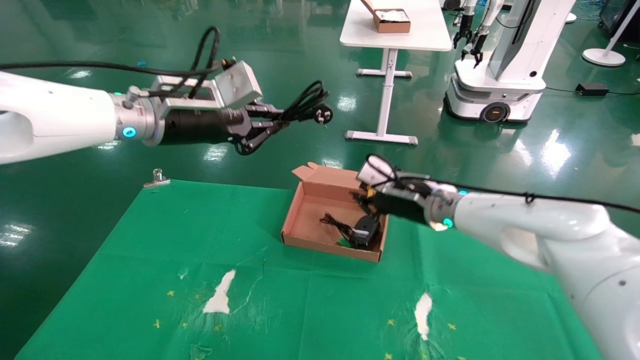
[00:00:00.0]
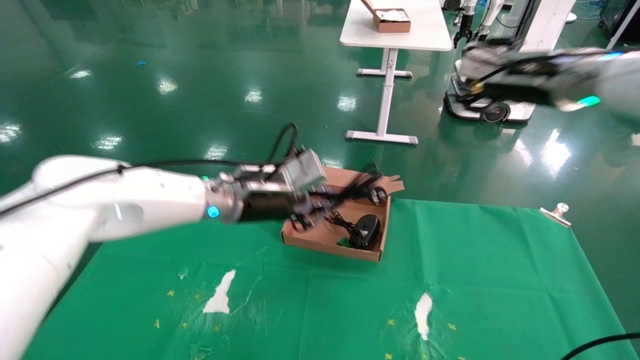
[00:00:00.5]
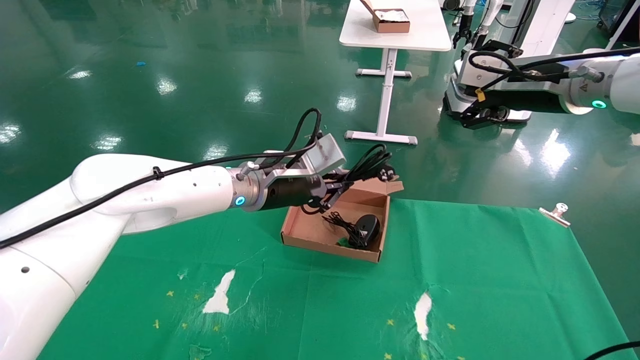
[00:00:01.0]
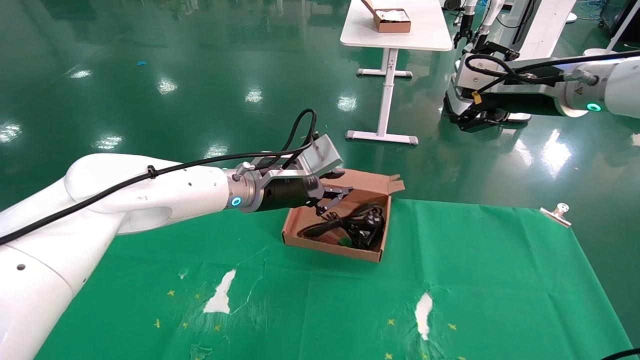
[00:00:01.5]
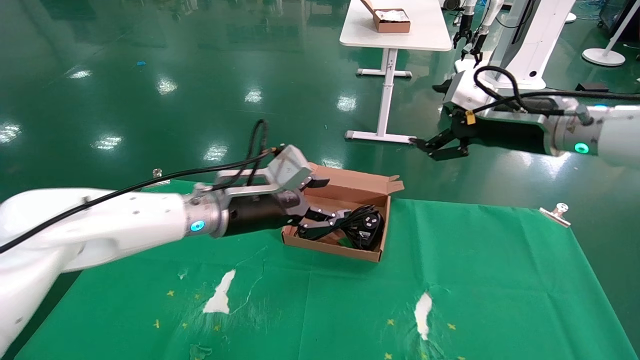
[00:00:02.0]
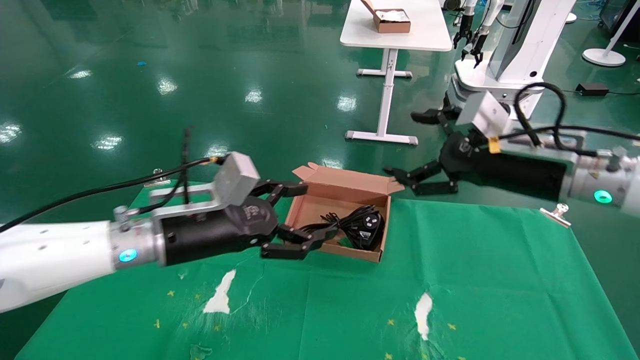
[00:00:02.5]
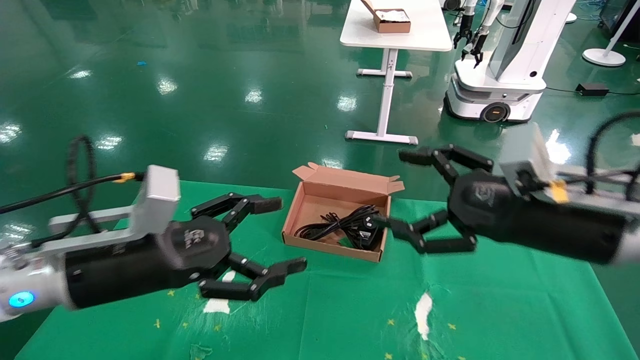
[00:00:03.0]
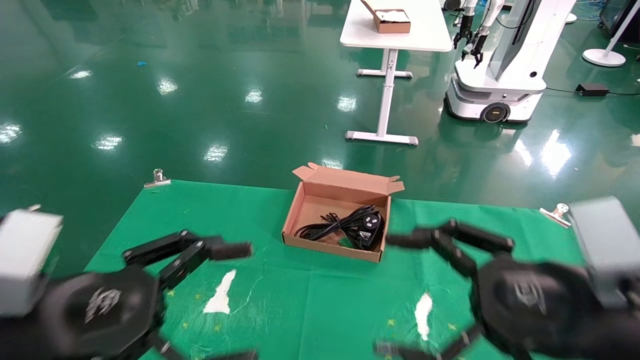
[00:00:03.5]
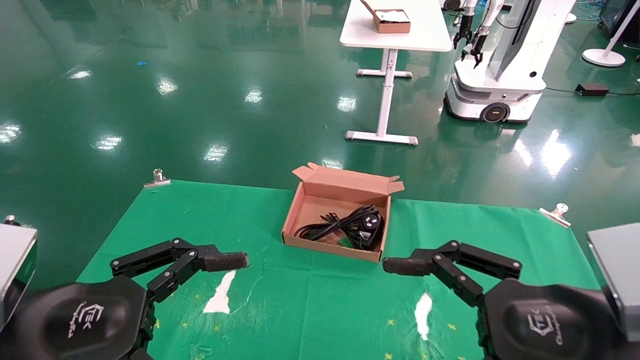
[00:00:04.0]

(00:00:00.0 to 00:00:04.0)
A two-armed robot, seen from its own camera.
Step, 00:00:00.0 - 00:00:03.0: Place the mouse and power cord into the box.
00:00:00.0 - 00:00:02.0: The right gripper shifts roughly 15 cm upward, to the right and backward, and opens up. Meanwhile the left gripper shifts roughly 15 cm downward and to the right, and opens its fingers.
00:00:02.0 - 00:00:04.0: The right gripper travels backward and downward by approximately 25 cm; the left gripper goes about 25 cm backward and to the left, and opens up.
